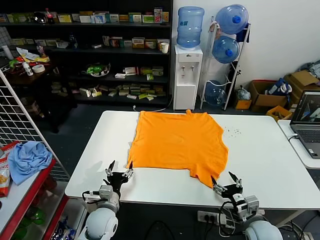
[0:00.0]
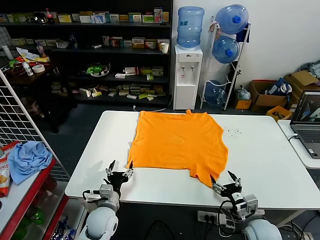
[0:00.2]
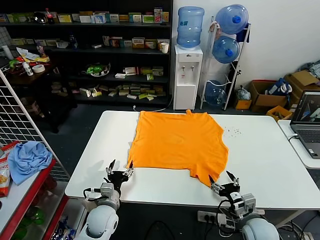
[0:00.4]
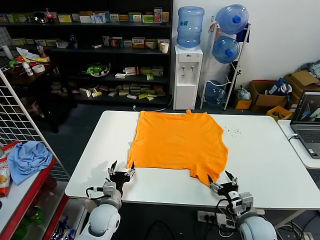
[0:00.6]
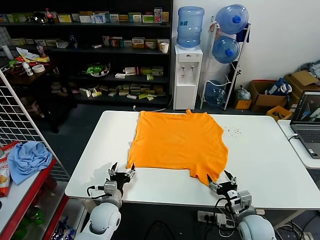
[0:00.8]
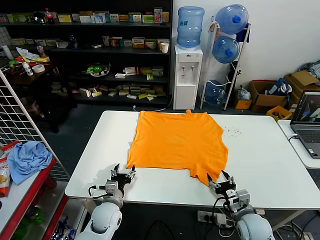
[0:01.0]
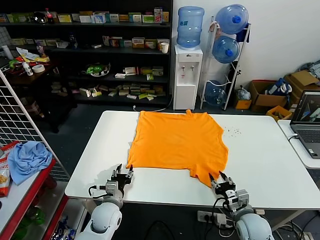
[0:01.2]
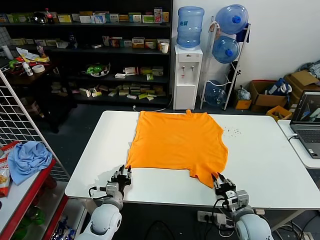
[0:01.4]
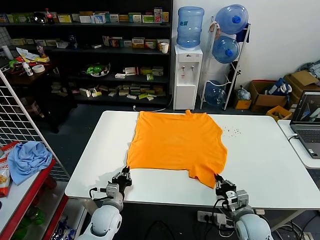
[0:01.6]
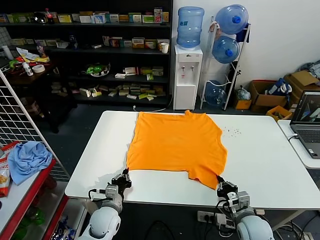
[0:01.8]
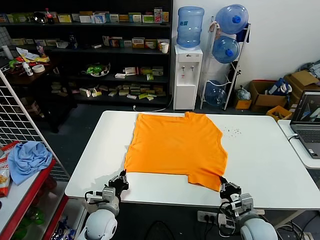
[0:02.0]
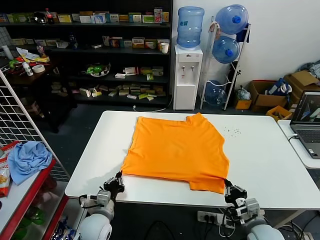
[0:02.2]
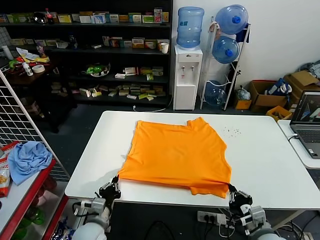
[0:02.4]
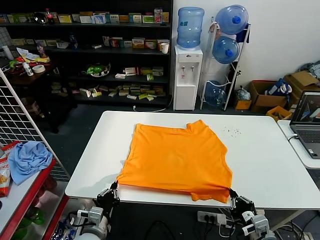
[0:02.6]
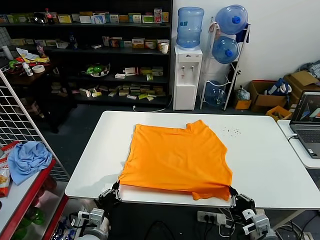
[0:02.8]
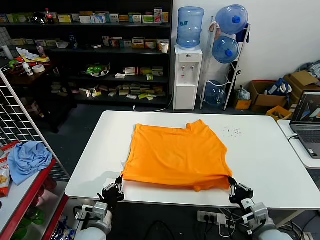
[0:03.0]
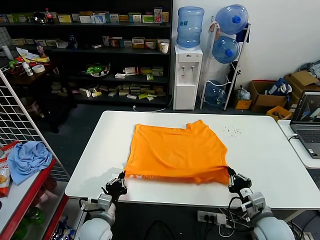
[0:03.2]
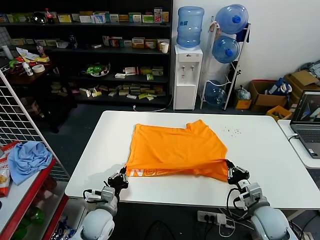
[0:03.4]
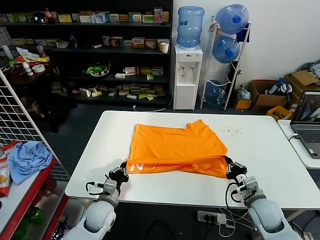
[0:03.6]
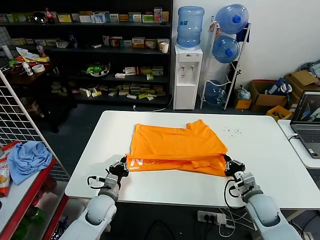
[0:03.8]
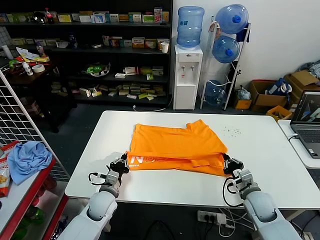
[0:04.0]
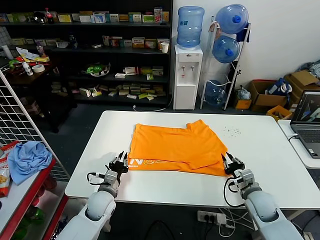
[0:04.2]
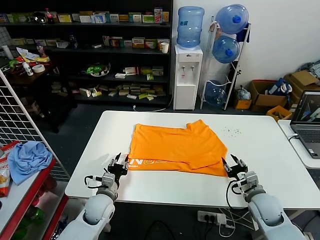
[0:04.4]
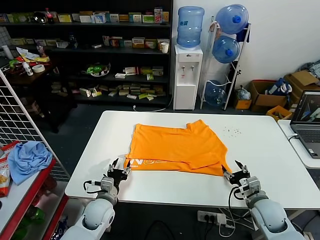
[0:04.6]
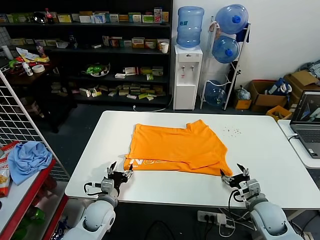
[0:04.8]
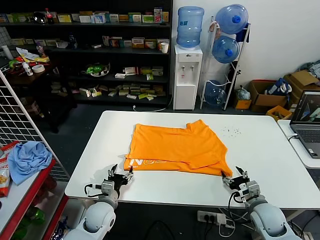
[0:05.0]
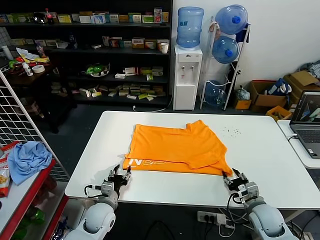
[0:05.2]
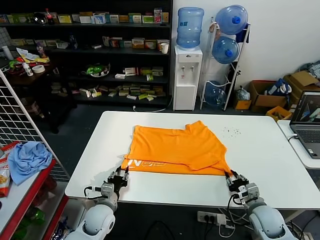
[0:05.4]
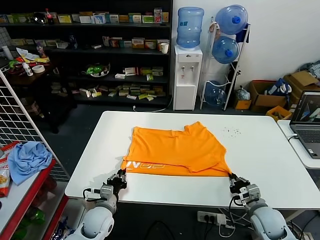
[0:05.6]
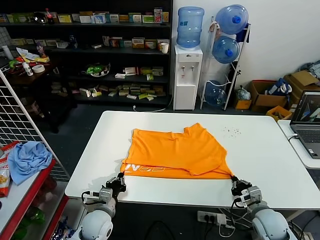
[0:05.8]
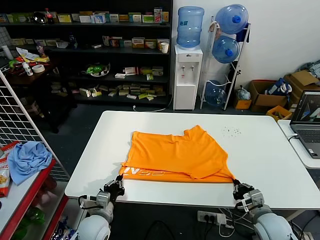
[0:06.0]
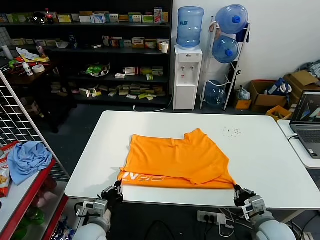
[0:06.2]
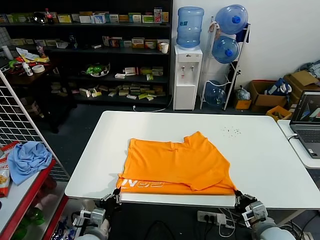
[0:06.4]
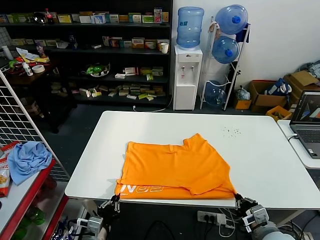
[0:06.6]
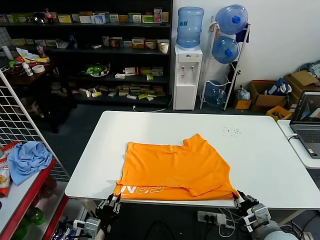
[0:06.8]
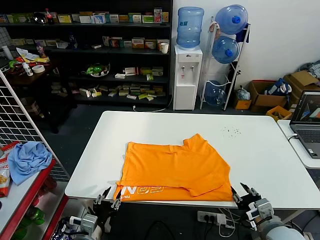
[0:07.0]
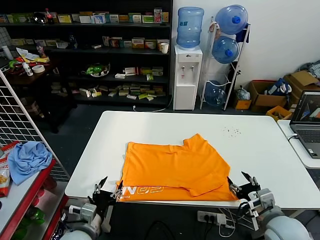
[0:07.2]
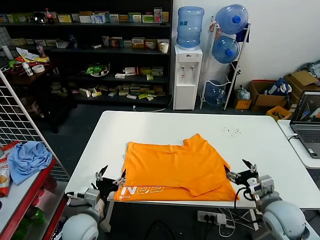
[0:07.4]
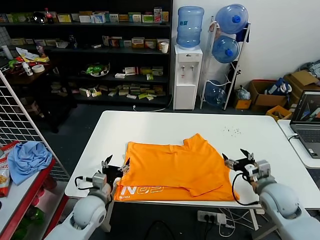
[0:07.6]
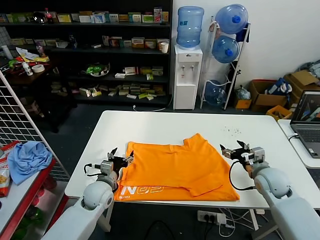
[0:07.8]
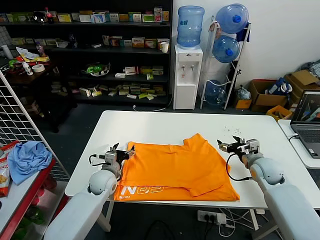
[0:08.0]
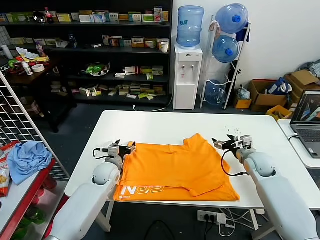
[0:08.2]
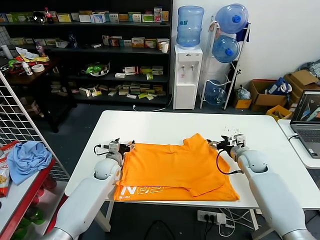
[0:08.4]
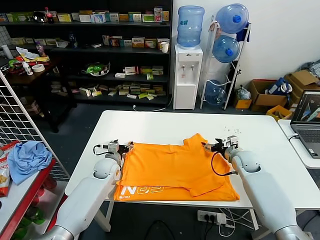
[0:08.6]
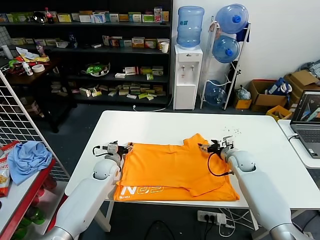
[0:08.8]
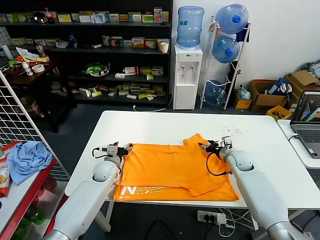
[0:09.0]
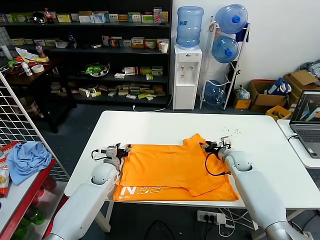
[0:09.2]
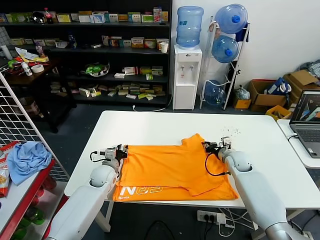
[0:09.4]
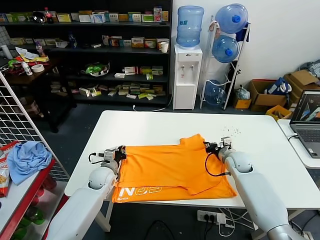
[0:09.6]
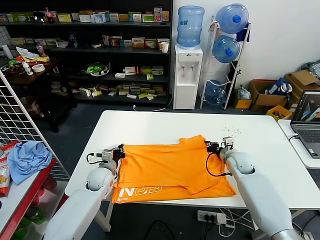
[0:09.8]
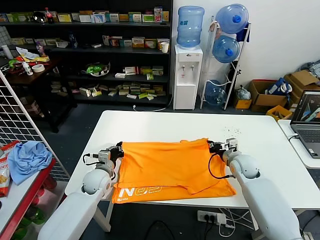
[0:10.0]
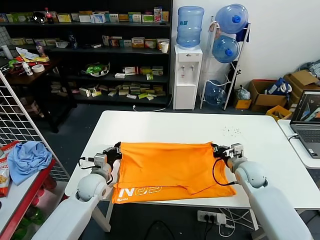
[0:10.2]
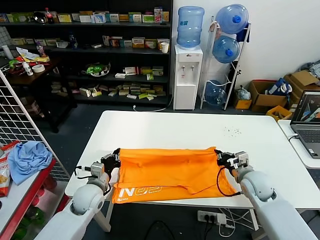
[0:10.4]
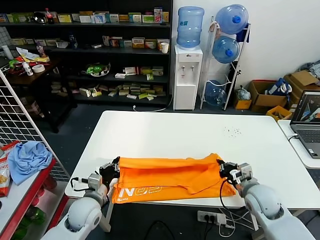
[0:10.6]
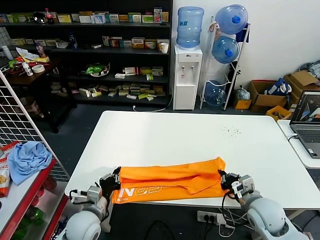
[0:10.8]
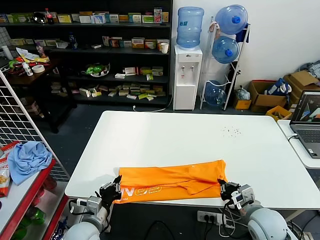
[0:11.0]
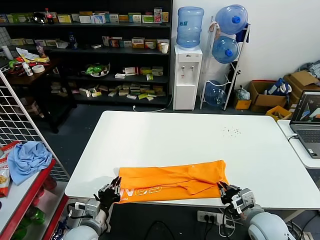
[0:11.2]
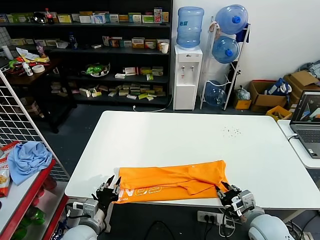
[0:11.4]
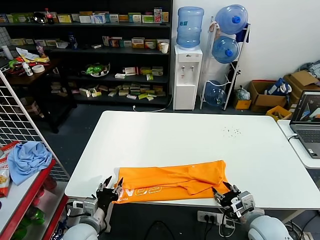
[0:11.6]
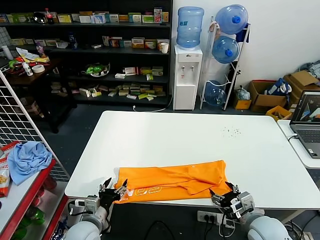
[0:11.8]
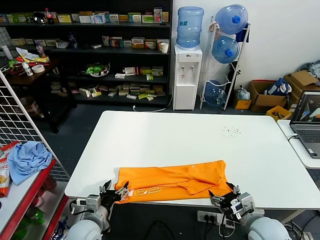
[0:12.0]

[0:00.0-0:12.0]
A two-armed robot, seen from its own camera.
Task of the whole recording: fold and organize the clothes.
Step, 0:00.0 to 0:01.6: use both grippers simultaneously to clamp the lower edge of the clothing fabric.
Step, 0:01.8 to 0:04.2: use both grippers to drag the lower edge of the fabric forward and fold it over the upper edge.
Step, 0:04.4 to 0:07.0: Drag the clothes downward with both gripper.
Step, 0:07.2 to 0:09.8: use both grippers simultaneously to clamp the upper edge of the clothing fabric.
Step, 0:10.0 to 0:11.6: use both grippers to drag the upper edge of the fabric backward and fold it over the lower edge.
0:01.6 to 0:03.0: The left gripper moves backward, about 10 cm, while the right gripper heads upward, covering about 5 cm.
0:03.0 to 0:04.4: The grippers both shift forward by some 10 cm. The left gripper opens. The right gripper opens its fingers.
0:04.4 to 0:06.0: Both grippers move backward, some 5 cm. The right gripper closes. The left gripper closes its fingers.
0:06.0 to 0:07.6: The left gripper is displaced upward by approximately 5 cm, reaches some 10 cm backward, then returns, and opens up; the right gripper goes about 10 cm forward and upward, and opens.
0:07.6 to 0:09.0: The right gripper shifts roughly 20 cm forward and downward, and closes. The left gripper travels forward by roughly 15 cm.
0:09.0 to 0:10.4: Both grippers travel together backward, about 15 cm. The right gripper closes its fingers. Meanwhile the left gripper closes.
0:10.4 to 0:12.0: Both grippers travel together backward, about 10 cm. The left gripper opens. Meanwhile the right gripper opens its fingers.

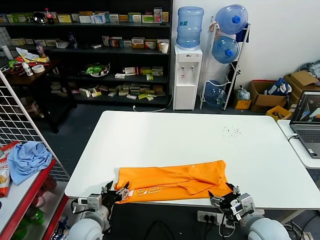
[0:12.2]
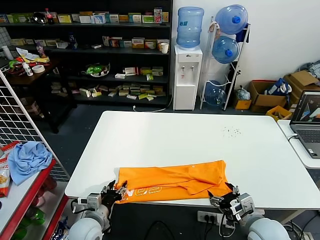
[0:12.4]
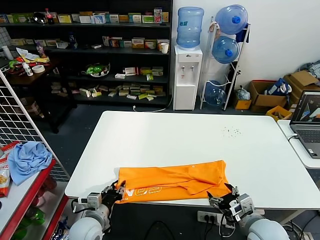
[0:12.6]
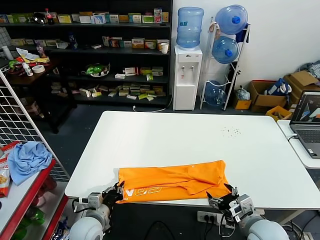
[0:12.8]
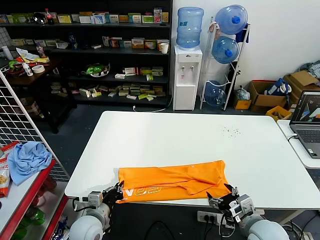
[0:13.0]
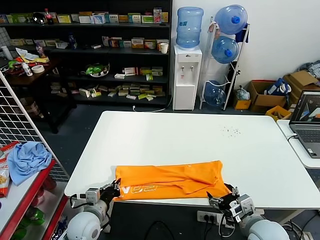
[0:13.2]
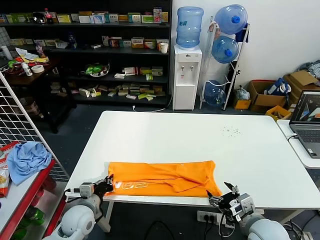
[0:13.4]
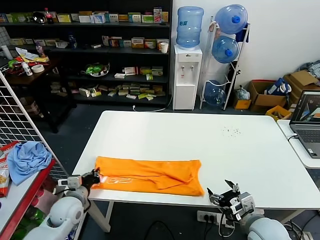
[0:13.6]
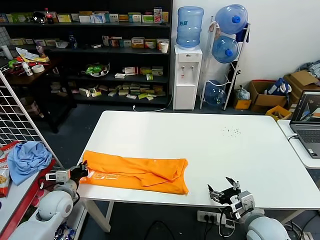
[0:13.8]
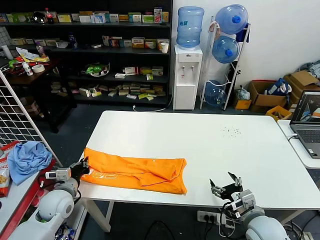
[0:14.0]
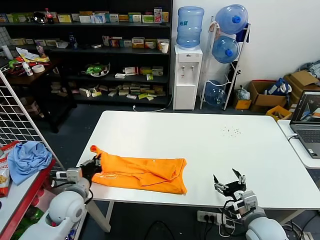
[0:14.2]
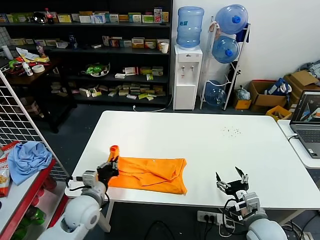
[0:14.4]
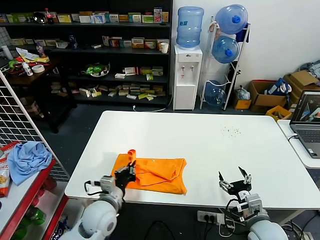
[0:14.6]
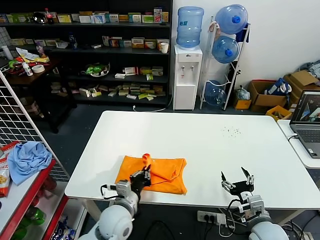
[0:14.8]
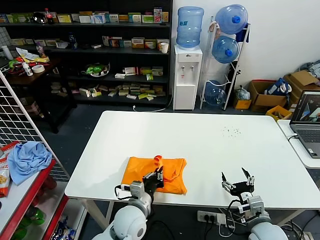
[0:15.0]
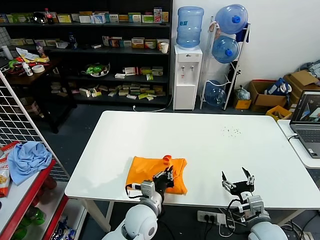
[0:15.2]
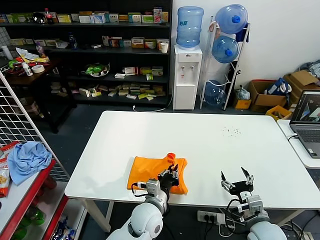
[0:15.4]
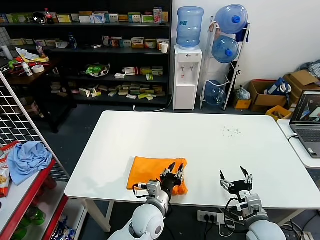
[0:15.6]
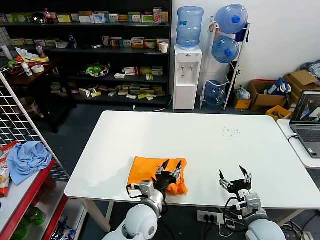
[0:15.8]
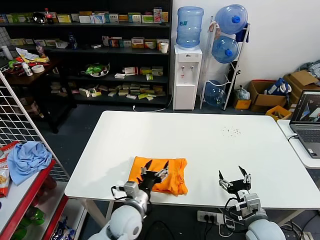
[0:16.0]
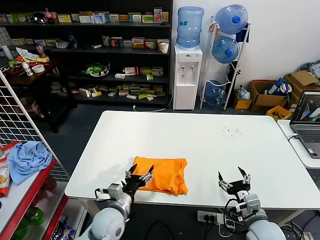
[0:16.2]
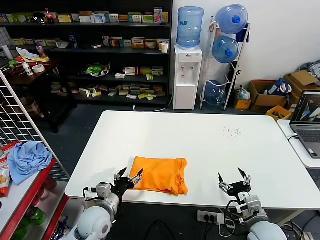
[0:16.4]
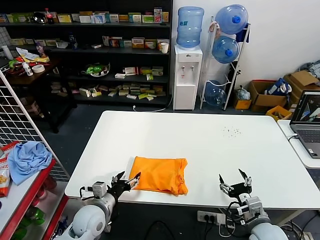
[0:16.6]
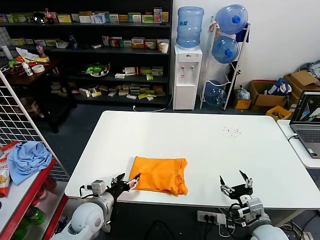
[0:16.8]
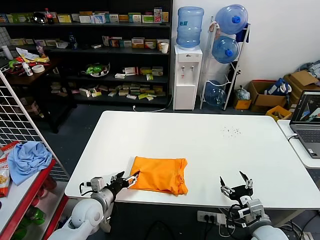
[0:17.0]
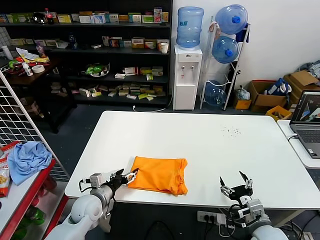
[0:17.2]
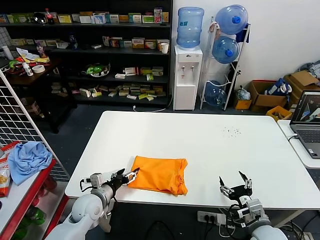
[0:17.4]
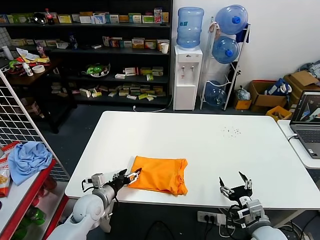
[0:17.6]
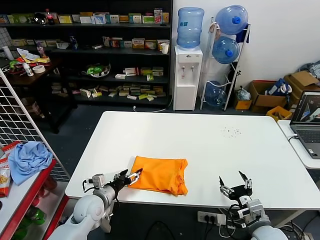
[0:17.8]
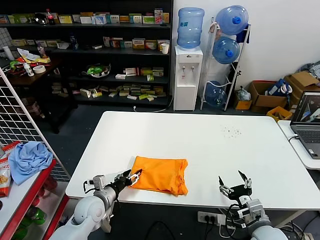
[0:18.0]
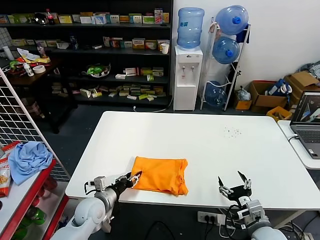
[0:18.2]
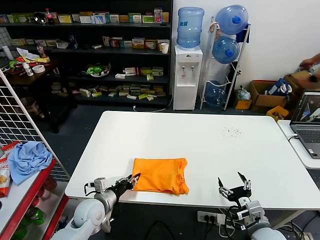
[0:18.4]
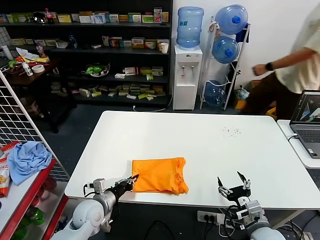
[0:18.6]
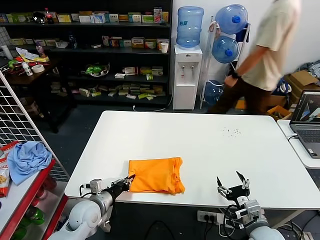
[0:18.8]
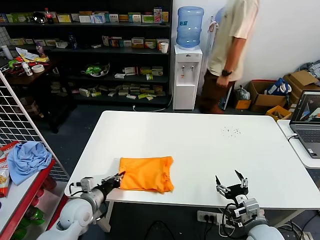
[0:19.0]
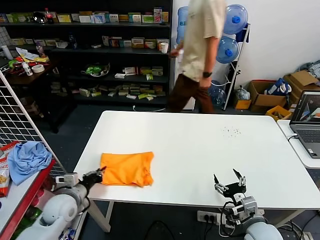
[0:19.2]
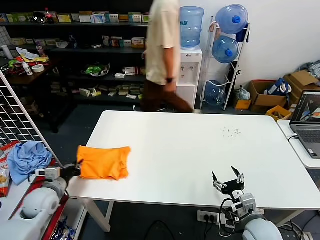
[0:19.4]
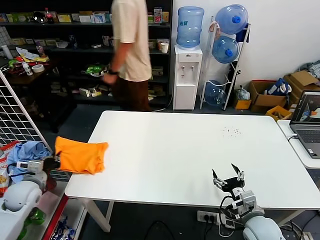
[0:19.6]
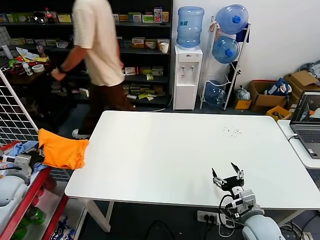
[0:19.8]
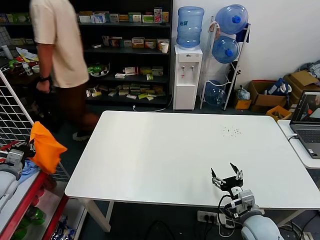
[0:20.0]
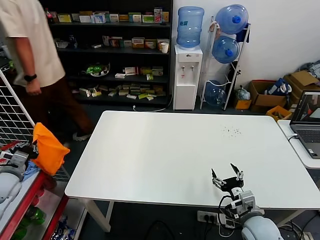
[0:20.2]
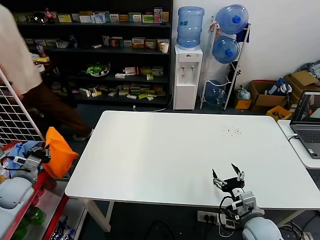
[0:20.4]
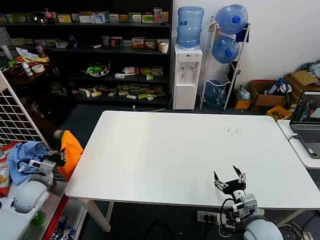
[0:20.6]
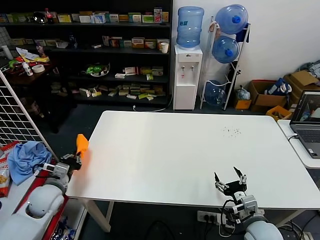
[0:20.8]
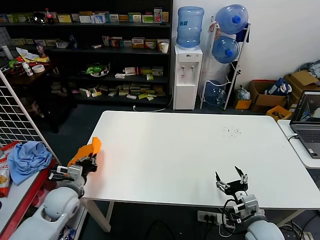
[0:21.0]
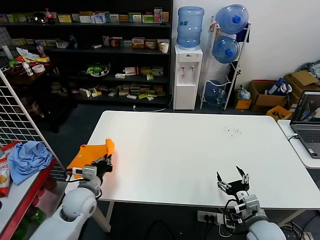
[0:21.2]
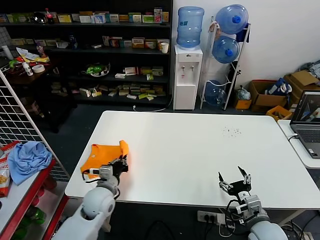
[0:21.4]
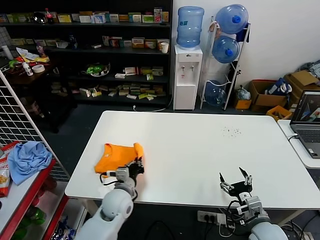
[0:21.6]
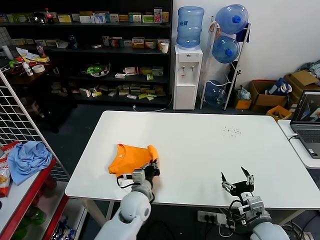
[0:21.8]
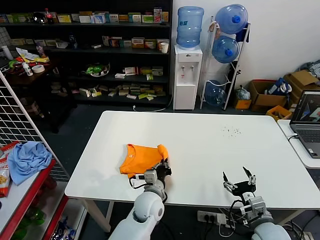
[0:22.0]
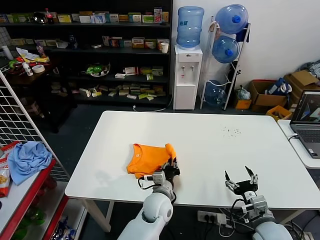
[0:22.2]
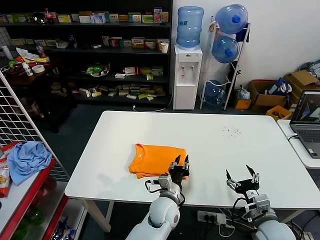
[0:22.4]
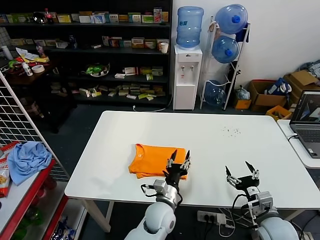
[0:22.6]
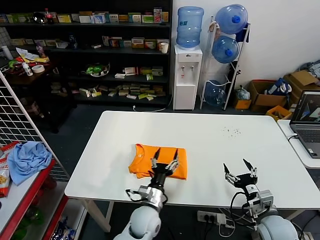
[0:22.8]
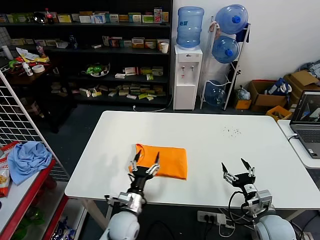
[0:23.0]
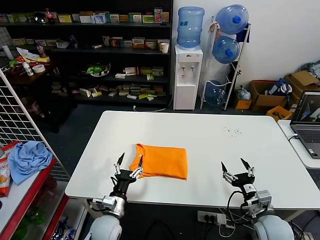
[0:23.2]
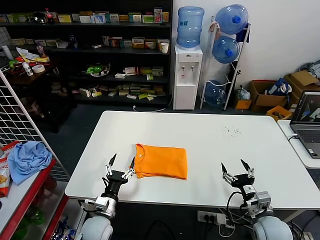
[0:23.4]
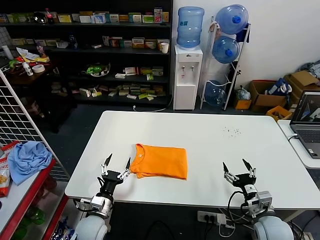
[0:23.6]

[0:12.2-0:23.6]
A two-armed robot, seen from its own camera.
Task of the whole recording: fold and organize the clothes.
Step, 0:12.2 to 0:13.0: use the left gripper to clamp the left edge of the fabric.
Step, 0:13.2 to 0:15.8: use the left gripper to drag the left edge of the fabric to the left and folds it over the right edge.
Step, 0:16.0 to 0:22.6: Flip the folded clothes over with left gripper.
0:12.2 to 0:13.6: The left gripper is displaced to the left and forward by about 10 cm, and closes up.
0:13.6 to 0:15.0: The left gripper shifts some 20 cm to the right.
0:15.0 to 0:16.4: The left gripper heads to the left, covering some 10 cm, and opens its fingers.
0:16.4 to 0:17.8: The left gripper shifts by approximately 5 cm.
0:17.8 to 0:19.4: The left gripper moves to the left and upward, about 15 cm, and closes up.
0:19.4 to 0:20.8: The left gripper goes to the left and returns, about 15 cm each way.
0:20.8 to 0:22.2: The left gripper goes approximately 35 cm to the right.
0:22.2 to 0:23.6: The left gripper is displaced to the left by approximately 20 cm, and opens.
